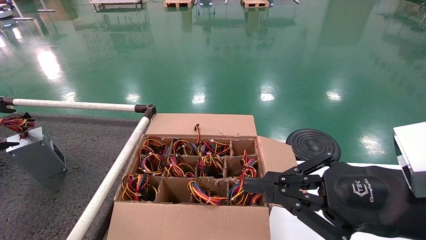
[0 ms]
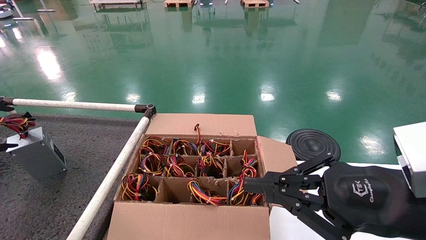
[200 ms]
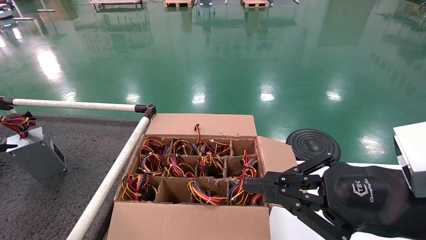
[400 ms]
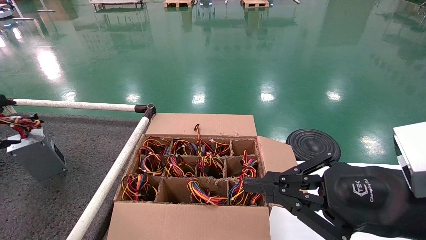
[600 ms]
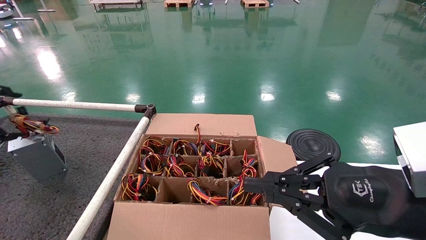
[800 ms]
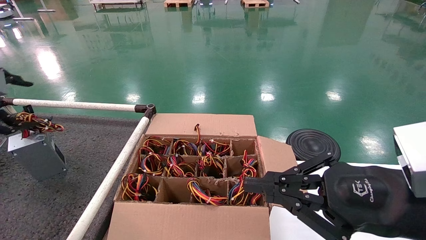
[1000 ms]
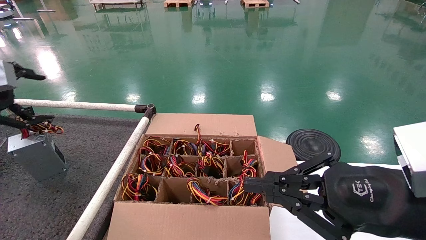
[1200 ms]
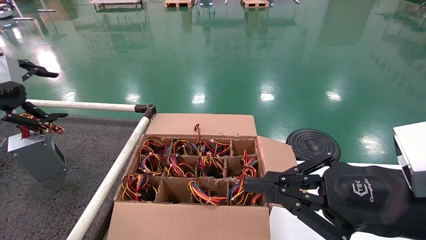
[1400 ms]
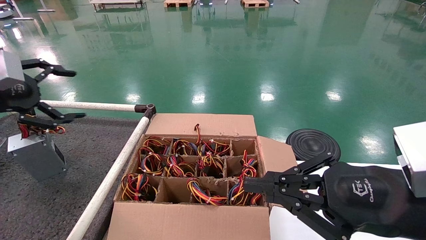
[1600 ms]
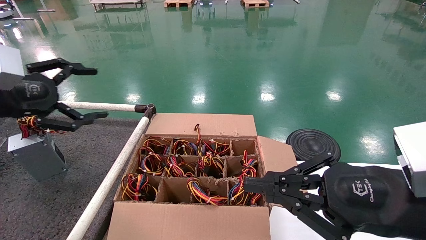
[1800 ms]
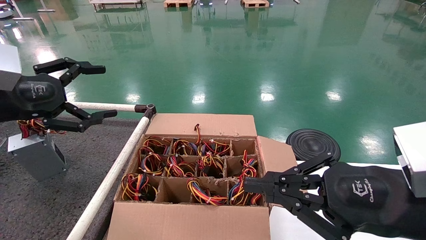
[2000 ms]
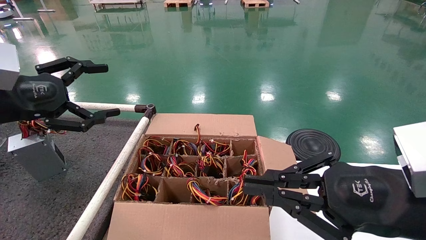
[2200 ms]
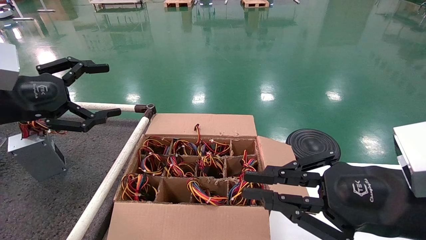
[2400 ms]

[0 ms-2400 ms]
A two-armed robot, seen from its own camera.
0 ms to 1200 ms: The left gripper travels to the right by roughly 5 cm, and opens up.
1200 ms to 2400 ms: The left gripper travels to the right by approximately 10 cm.
